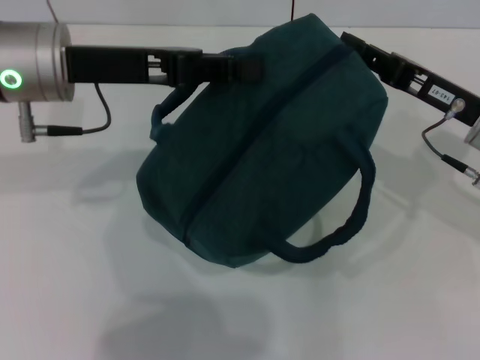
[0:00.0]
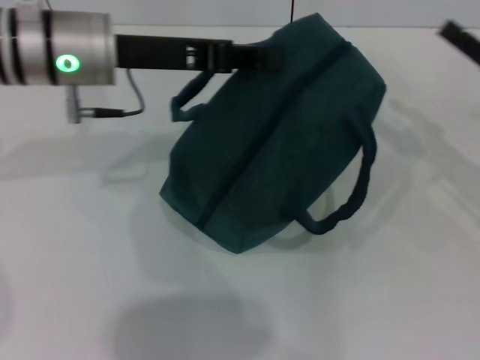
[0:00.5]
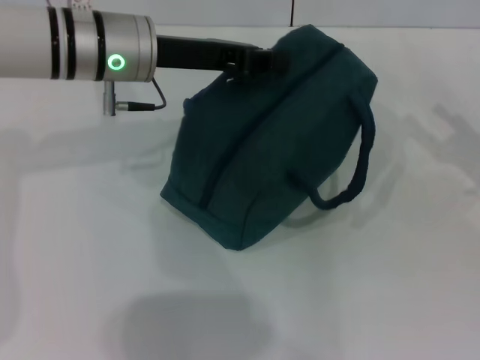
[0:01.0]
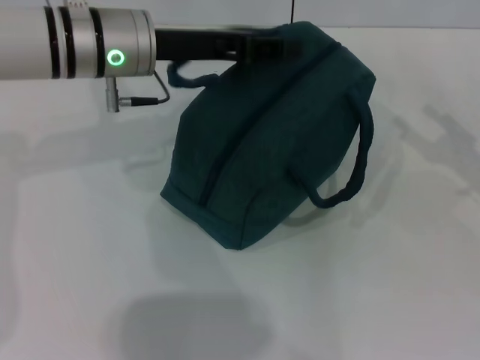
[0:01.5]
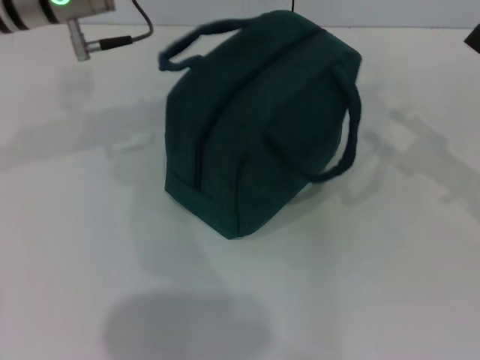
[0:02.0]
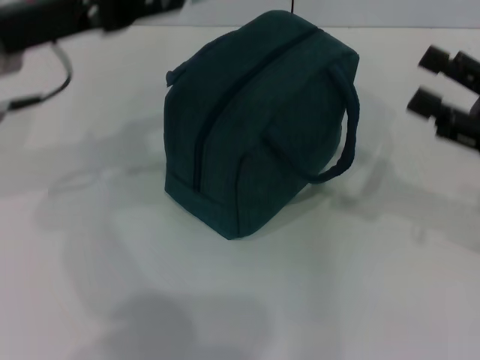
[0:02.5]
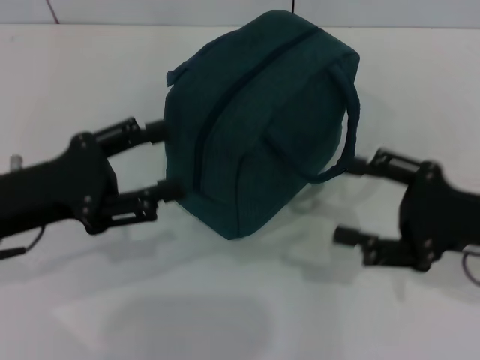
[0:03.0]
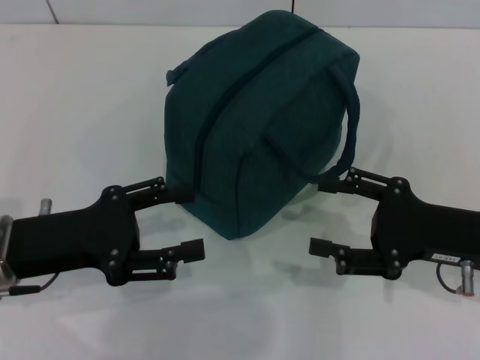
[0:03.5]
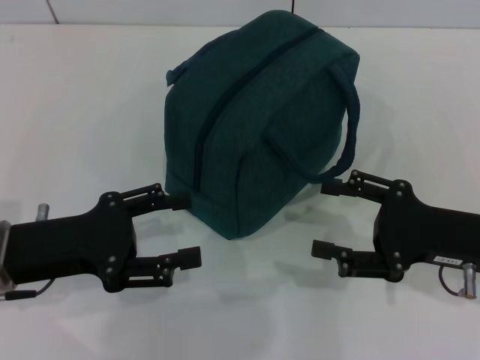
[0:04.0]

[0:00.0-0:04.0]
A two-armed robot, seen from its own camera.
Step, 0:00.5 to 0:01.5: Hold the lunch bag with your left hand.
0:00.0 to 0:02.0: The right gripper goes about 10 cm to the right, and opens. Meanwhile the left gripper moves some 5 cm, and opens its fingers.
0:02.0 to 0:04.0: The left gripper travels backward, downward and to the left by roughly 25 cm. The right gripper travels to the left by about 10 cm.
